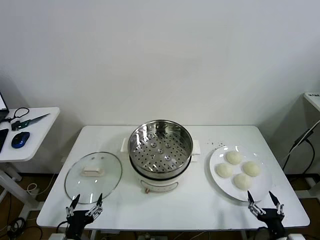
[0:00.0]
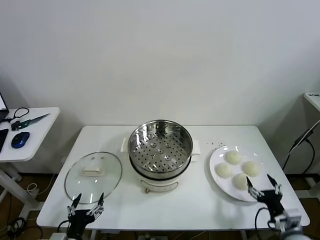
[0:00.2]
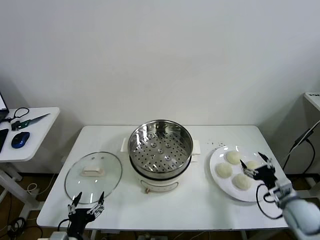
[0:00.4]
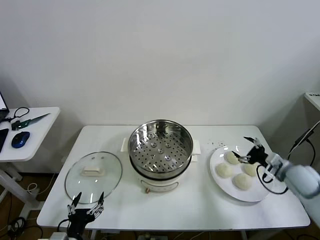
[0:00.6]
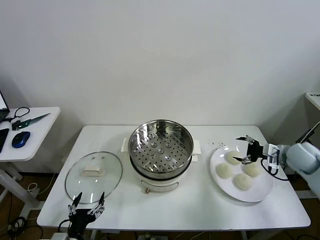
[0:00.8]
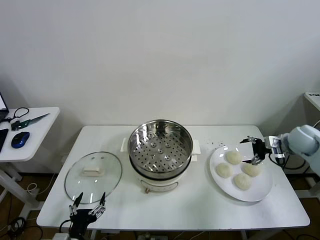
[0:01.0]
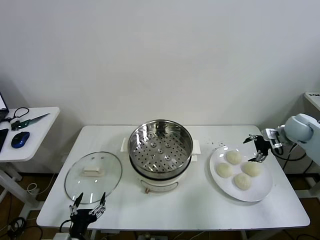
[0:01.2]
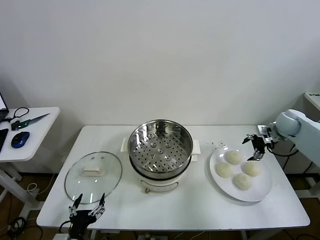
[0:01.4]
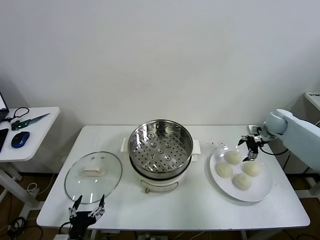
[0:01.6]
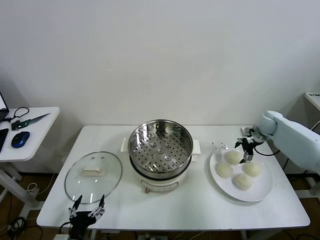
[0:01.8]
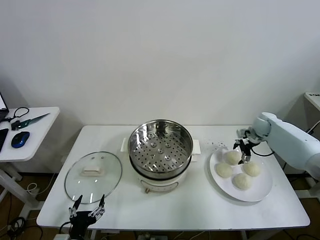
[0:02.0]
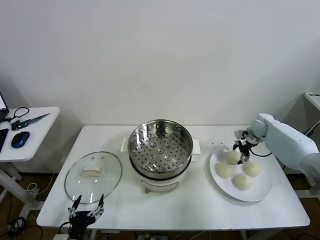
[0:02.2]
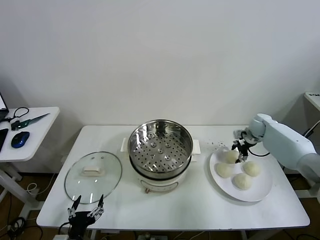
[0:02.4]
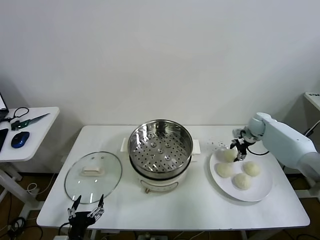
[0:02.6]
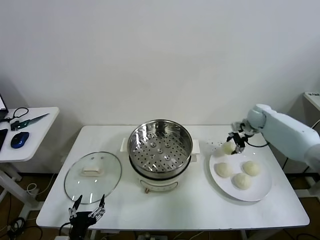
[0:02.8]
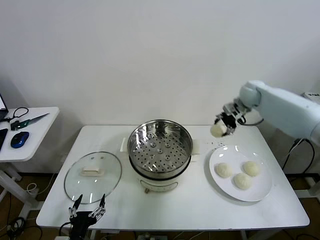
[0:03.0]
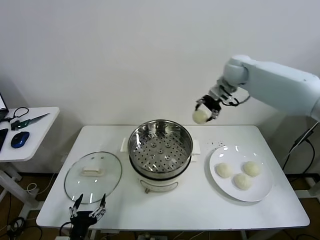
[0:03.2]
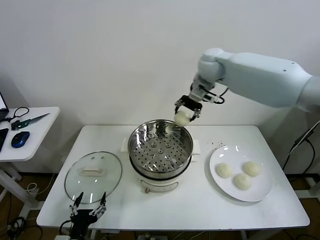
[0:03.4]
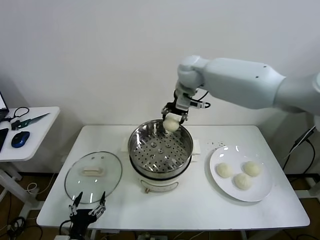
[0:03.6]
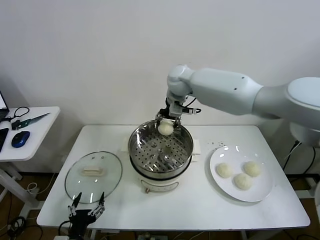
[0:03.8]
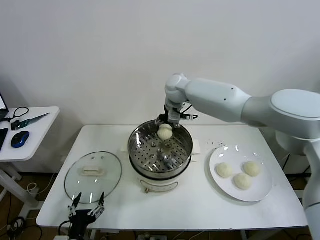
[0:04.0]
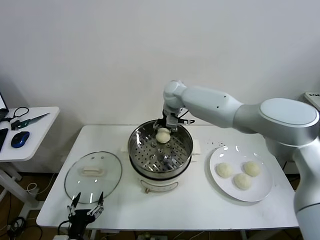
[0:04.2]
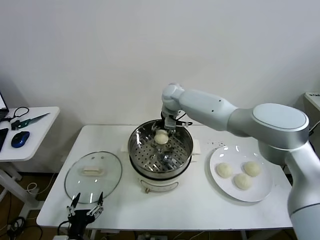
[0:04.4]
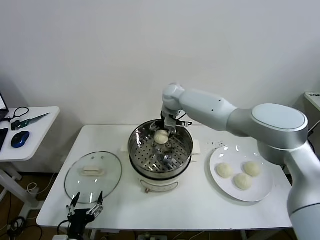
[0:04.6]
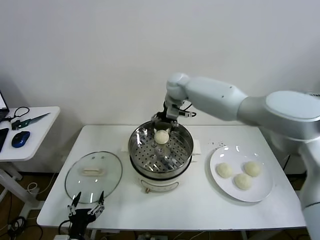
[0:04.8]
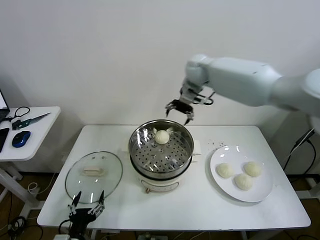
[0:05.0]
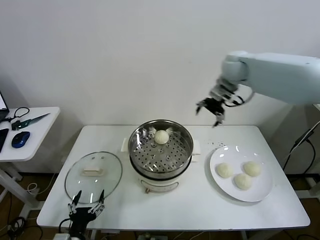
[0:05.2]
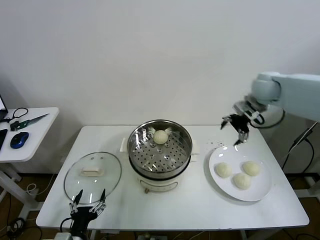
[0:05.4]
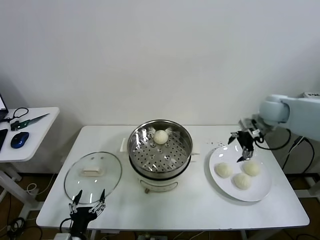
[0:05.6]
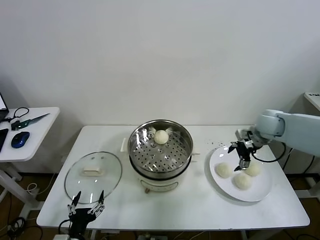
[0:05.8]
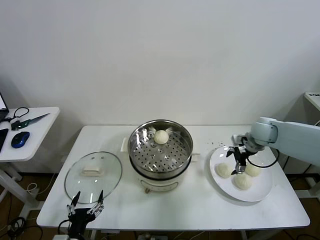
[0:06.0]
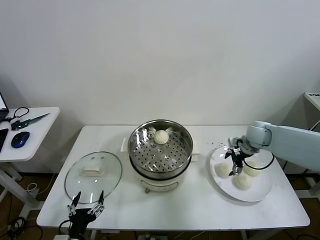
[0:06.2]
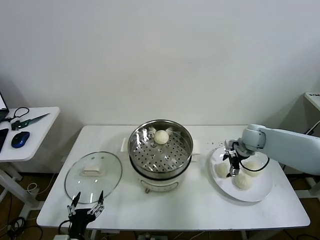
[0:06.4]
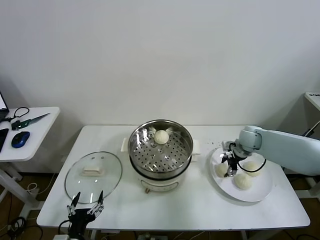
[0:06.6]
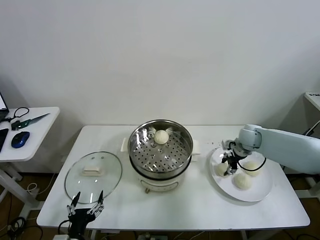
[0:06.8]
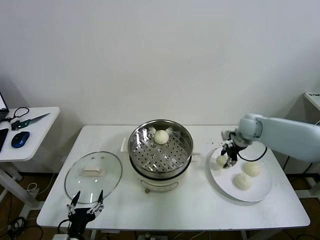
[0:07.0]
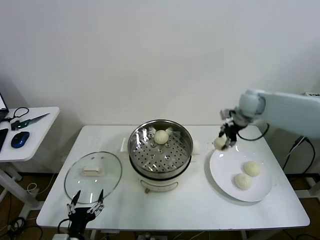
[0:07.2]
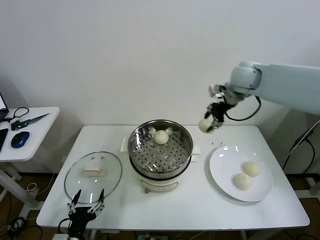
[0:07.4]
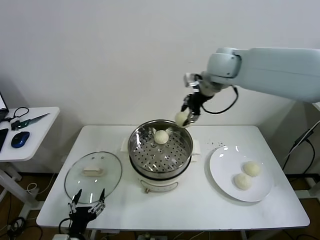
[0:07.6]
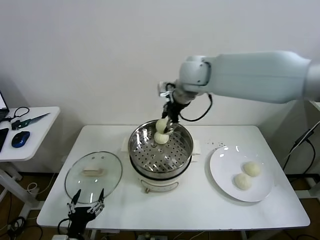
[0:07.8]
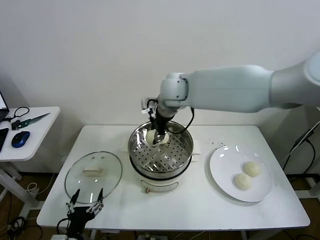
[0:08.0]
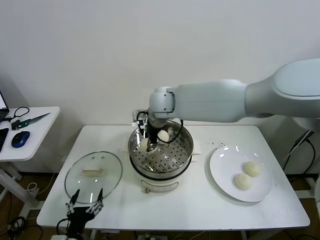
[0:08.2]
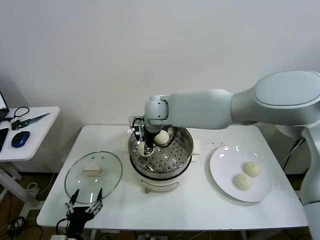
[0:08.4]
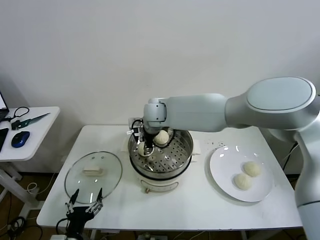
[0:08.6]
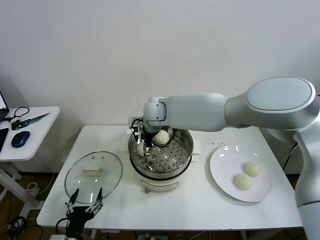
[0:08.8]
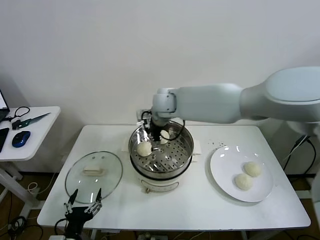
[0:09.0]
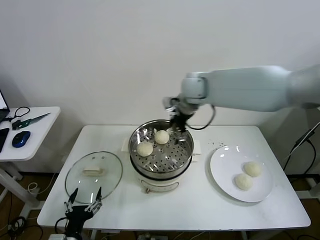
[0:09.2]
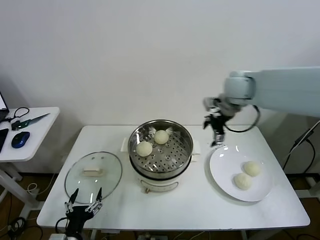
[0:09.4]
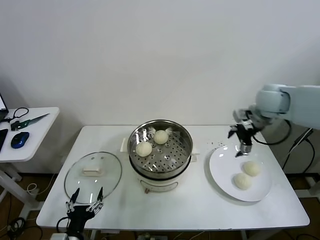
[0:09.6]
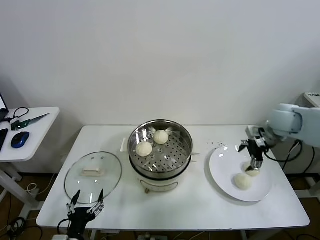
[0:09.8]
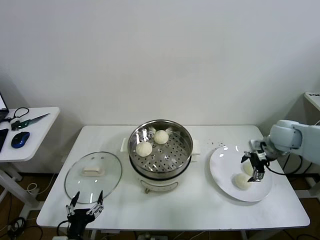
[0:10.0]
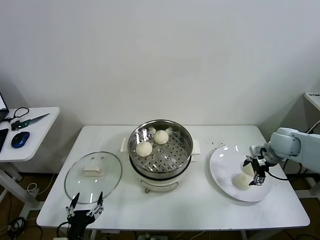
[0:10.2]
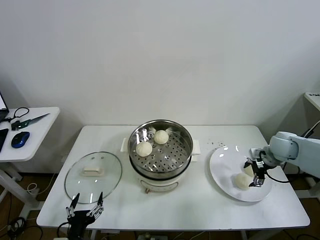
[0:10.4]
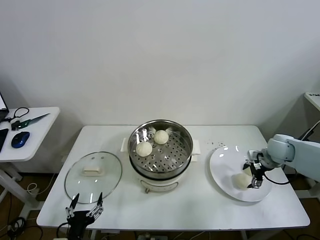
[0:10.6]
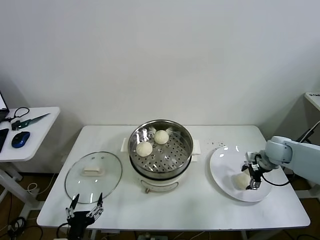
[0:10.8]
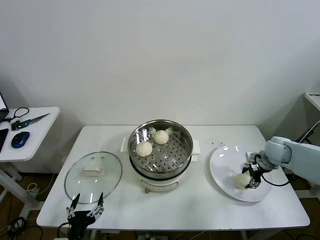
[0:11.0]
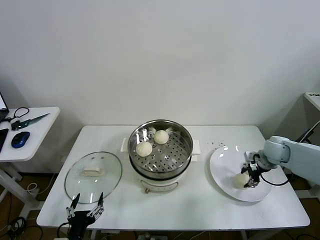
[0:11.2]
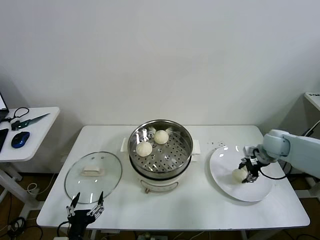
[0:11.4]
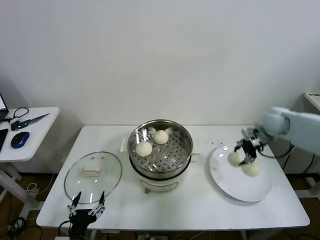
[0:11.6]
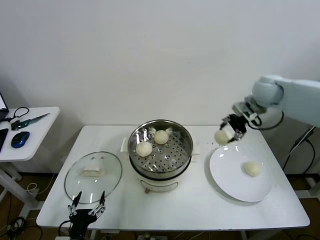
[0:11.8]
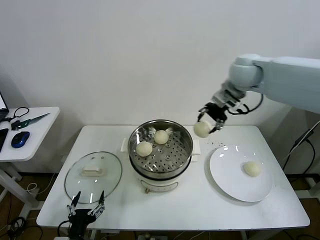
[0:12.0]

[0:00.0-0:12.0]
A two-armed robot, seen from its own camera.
Task of the whole recording: take steamed baozi put them in steamer then cover it.
Step, 0:00.0 to 0:02.2: Grasp the baozi in the plate with right gripper.
Step, 0:02.4 to 0:04.6: Place the baozi on the steamer with right gripper.
Step, 0:04.8 to 0:06.6: Grasp the baozi in the plate with right gripper.
Step, 0:06.8 to 0:08.8: Place the baozi on the steamer with right gripper.
Step, 0:09.0 to 0:10.8: Grasp the baozi in the plate with right gripper.
0:01.6 to 0:03.0: The right gripper goes approximately 25 cm upward and to the left, and closes.
0:03.0 to 0:04.4: The right gripper moves to the left, about 25 cm.
0:04.4 to 0:06.0: The right gripper heads to the right, covering roughly 30 cm.
0:06.0 to 0:07.6: The right gripper heads upward and to the left, covering some 35 cm, and closes its fingers.
0:07.6 to 0:09.0: The right gripper is displaced downward and to the left by roughly 15 cm, and opens up.
0:09.0 to 0:10.4: The right gripper moves to the right and downward, approximately 40 cm.
0:10.4 to 0:12.0: The right gripper heads upward and to the left, covering approximately 35 cm, and closes.

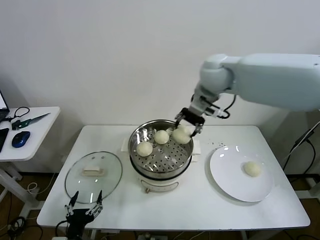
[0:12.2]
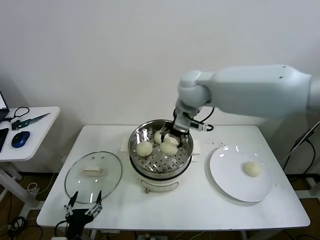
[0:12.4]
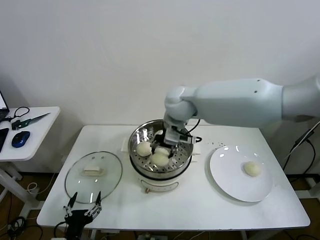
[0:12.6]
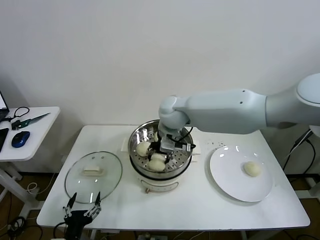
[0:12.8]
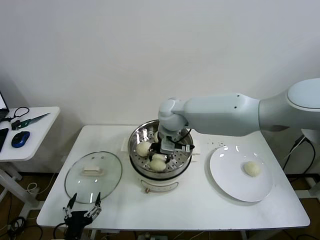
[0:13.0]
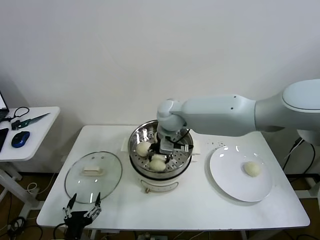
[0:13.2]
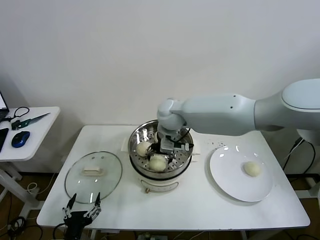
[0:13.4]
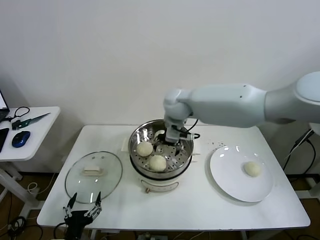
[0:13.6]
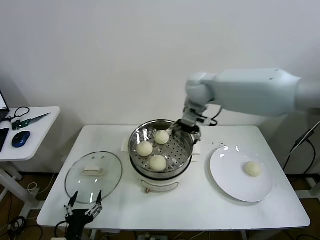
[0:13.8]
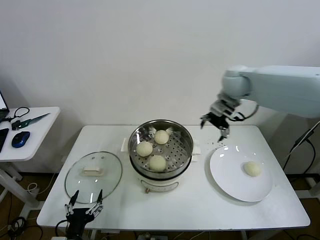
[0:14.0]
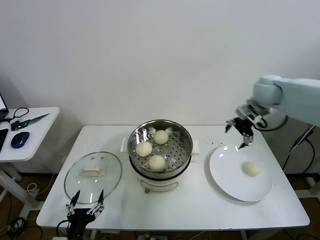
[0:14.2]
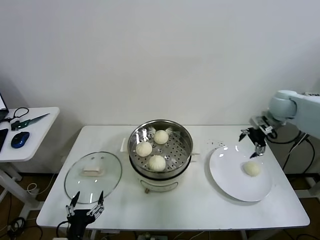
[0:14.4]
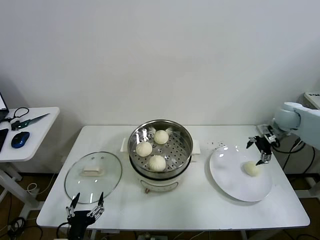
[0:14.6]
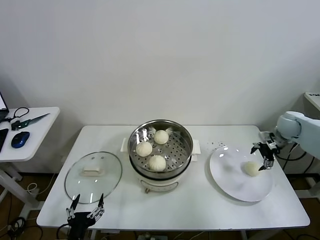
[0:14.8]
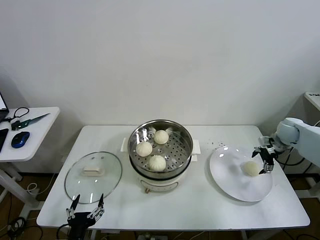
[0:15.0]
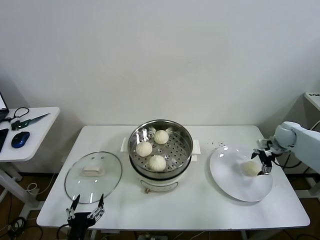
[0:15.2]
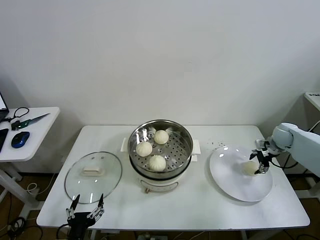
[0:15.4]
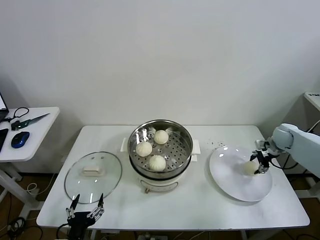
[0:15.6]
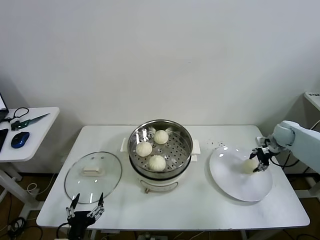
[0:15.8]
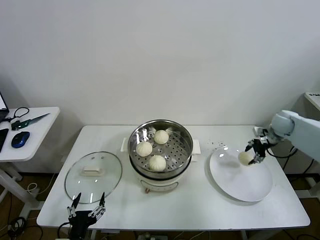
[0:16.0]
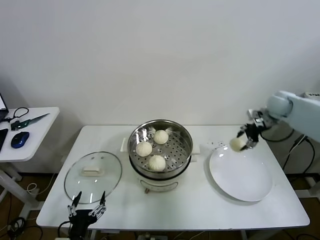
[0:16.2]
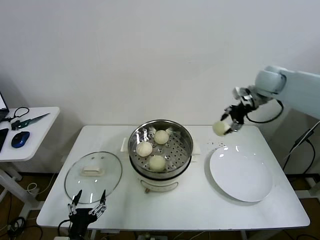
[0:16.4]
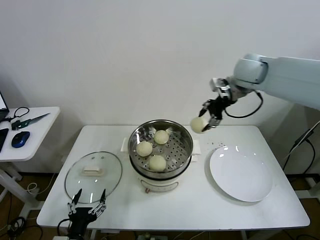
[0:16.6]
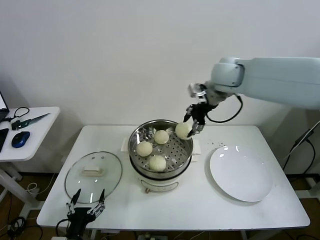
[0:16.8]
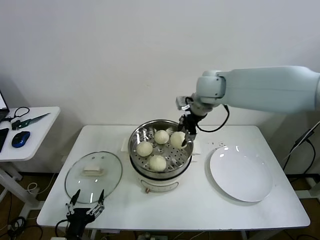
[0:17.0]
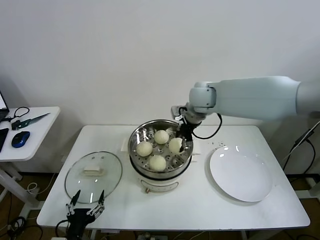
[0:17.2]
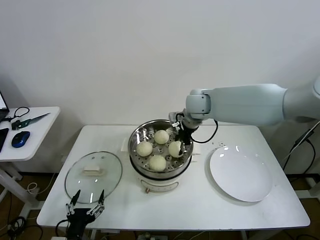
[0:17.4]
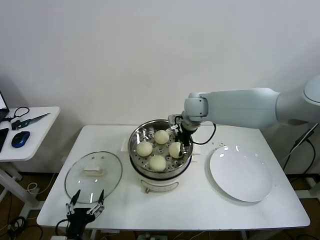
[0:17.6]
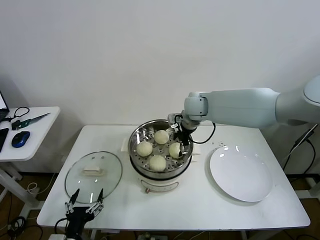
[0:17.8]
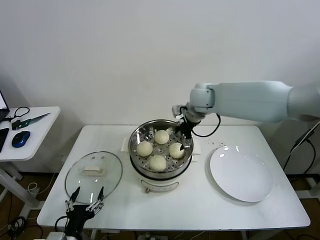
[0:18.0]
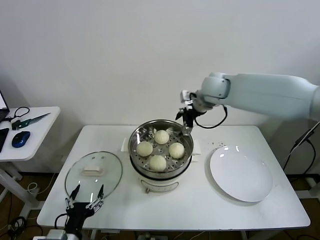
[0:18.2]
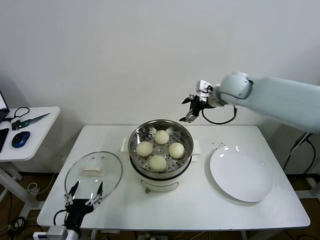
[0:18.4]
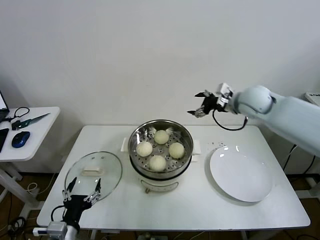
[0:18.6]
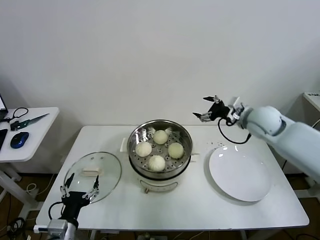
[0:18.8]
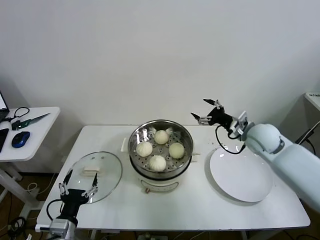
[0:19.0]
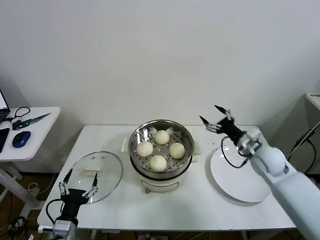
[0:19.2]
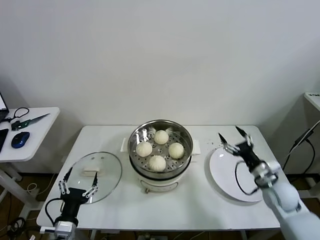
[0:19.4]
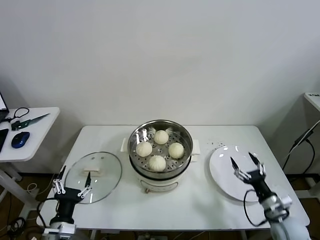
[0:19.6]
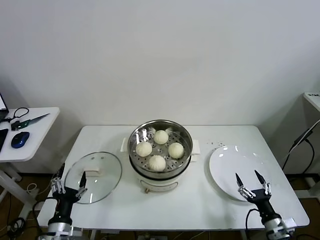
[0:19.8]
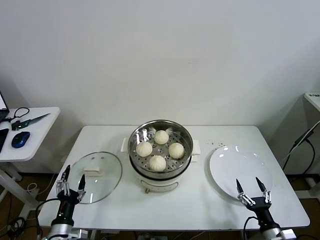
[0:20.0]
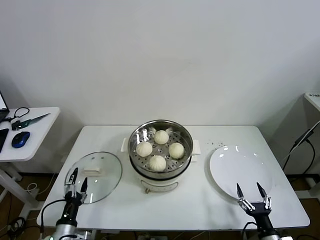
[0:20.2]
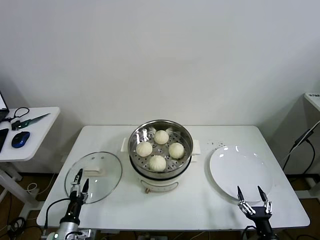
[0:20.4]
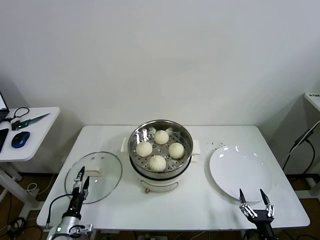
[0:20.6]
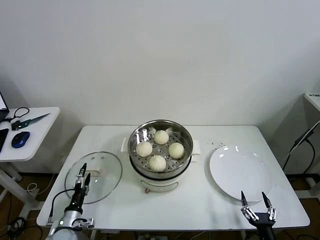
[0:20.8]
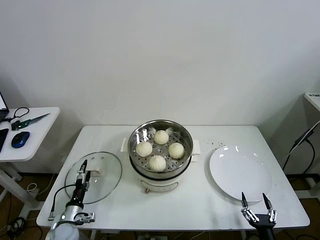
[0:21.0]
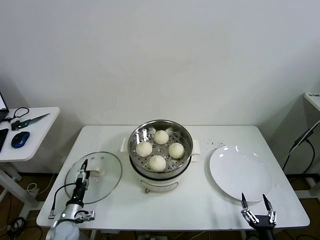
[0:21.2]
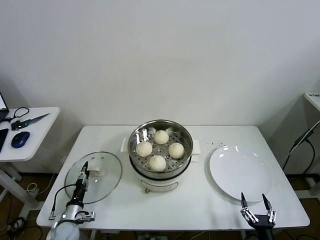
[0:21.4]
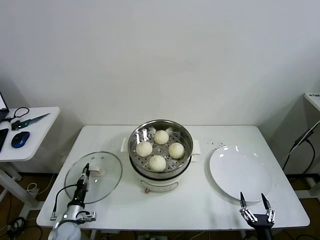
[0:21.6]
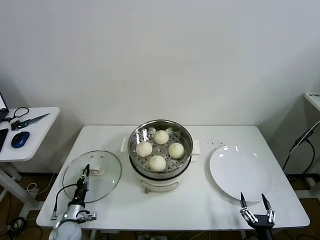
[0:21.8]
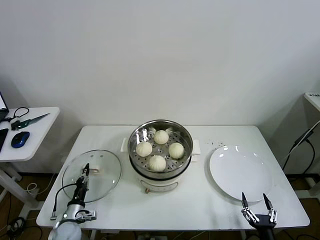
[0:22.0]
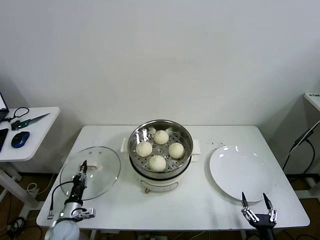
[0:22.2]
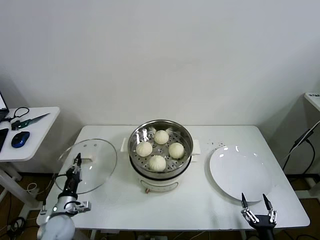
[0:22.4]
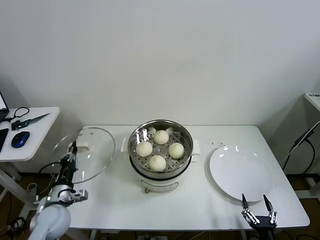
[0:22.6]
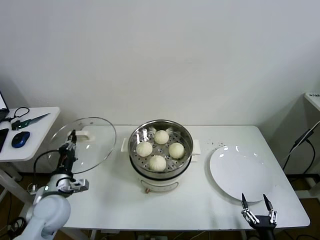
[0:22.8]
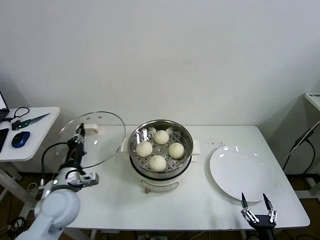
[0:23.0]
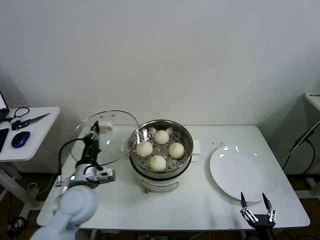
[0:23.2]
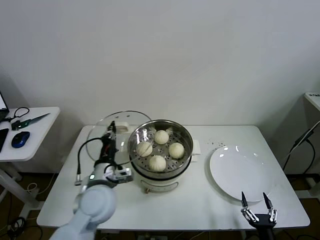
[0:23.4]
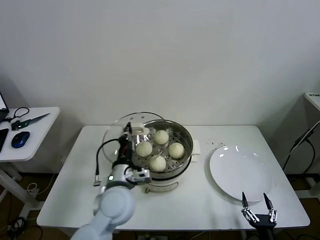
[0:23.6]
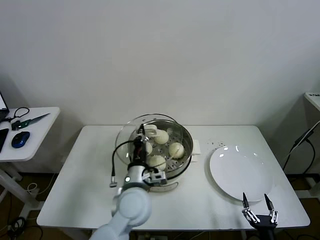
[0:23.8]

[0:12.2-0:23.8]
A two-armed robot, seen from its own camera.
Task of the whole recording: take steamed baozi put them in steamer then cover it.
Step, 0:12.2 to 0:13.4: Place the baozi on the steamer with right gripper.
Step, 0:13.6 to 0:15.4: Grasp the baozi in the plate with right gripper.
Step, 0:15.8 to 0:17.8: Place the baozi on the steamer with right gripper.
Step, 0:18.0 to 0:21.8: Grasp the pot lid with left gripper.
0:12.2 to 0:13.6: The right gripper goes approximately 10 cm downward and to the left, and opens up.
0:13.6 to 0:15.0: The right gripper travels to the right by roughly 40 cm.
0:15.0 to 0:16.6: The right gripper travels upward and to the left by some 35 cm, and closes.
0:16.6 to 0:18.0: The right gripper shifts about 15 cm to the left and downward, and opens up.
0:18.0 to 0:19.4: The right gripper moves downward, to the right and backward, roughly 40 cm.
0:19.4 to 0:21.0: The right gripper heads backward and downward, covering approximately 25 cm; the left gripper heads downward, forward and to the left, covering about 20 cm.
0:21.0 to 0:22.4: The left gripper goes approximately 5 cm upward, and closes up.
0:22.4 to 0:23.8: The left gripper shifts approximately 30 cm to the right and upward.
